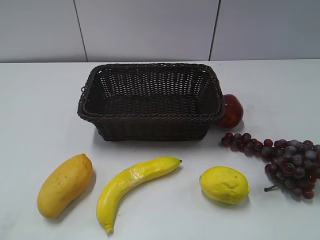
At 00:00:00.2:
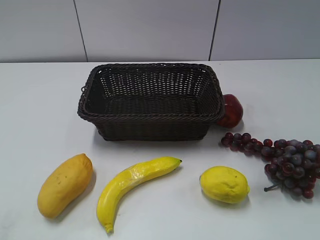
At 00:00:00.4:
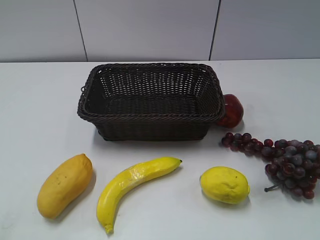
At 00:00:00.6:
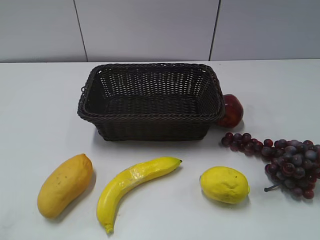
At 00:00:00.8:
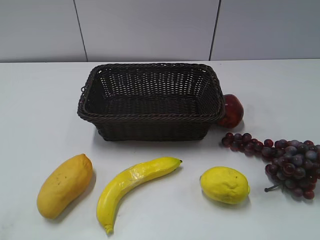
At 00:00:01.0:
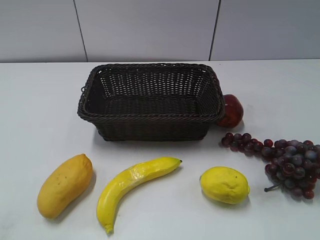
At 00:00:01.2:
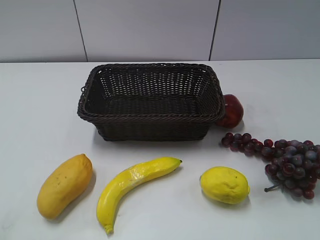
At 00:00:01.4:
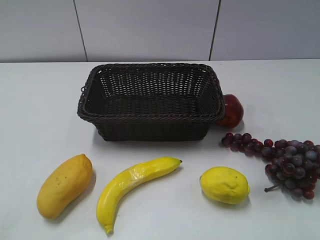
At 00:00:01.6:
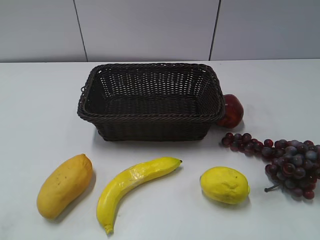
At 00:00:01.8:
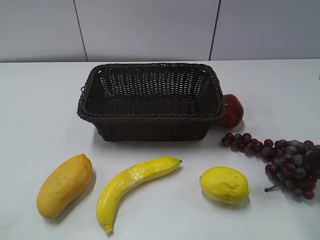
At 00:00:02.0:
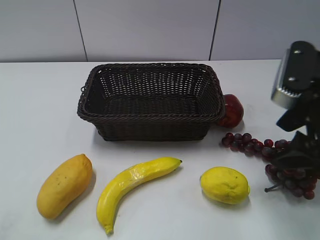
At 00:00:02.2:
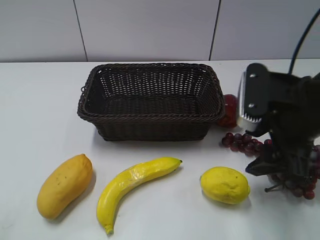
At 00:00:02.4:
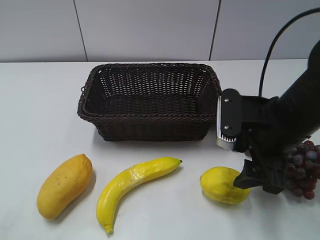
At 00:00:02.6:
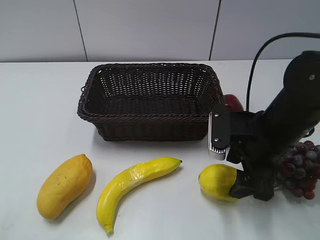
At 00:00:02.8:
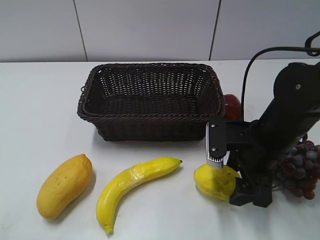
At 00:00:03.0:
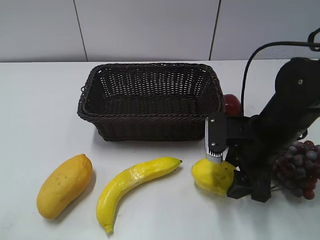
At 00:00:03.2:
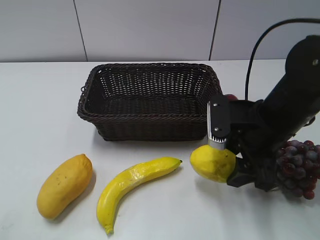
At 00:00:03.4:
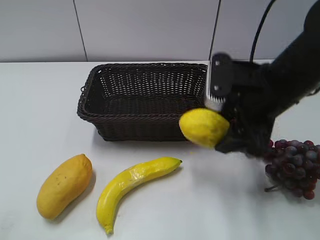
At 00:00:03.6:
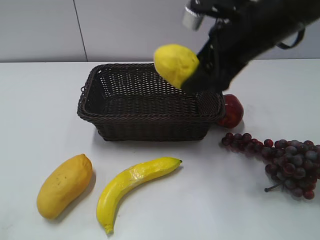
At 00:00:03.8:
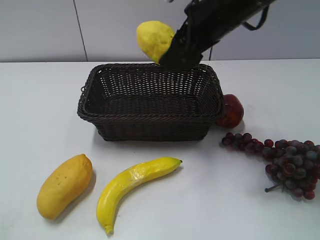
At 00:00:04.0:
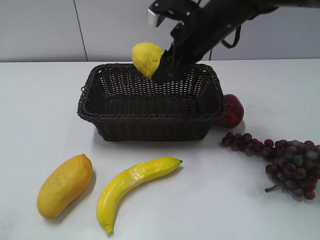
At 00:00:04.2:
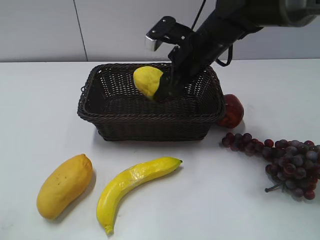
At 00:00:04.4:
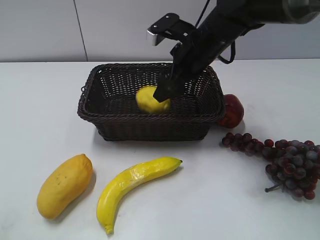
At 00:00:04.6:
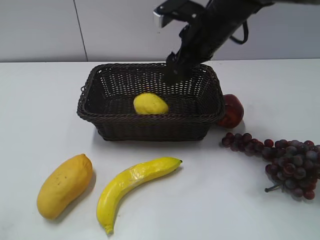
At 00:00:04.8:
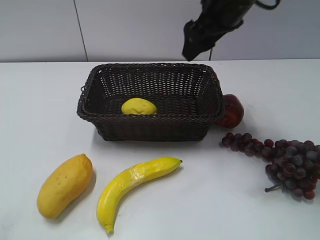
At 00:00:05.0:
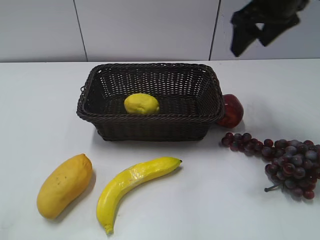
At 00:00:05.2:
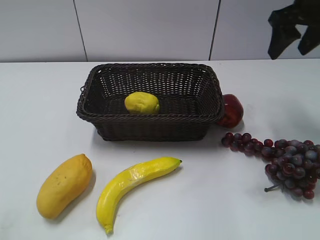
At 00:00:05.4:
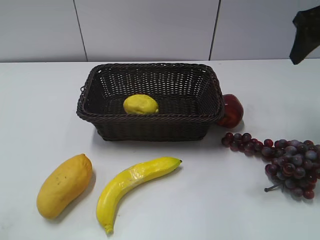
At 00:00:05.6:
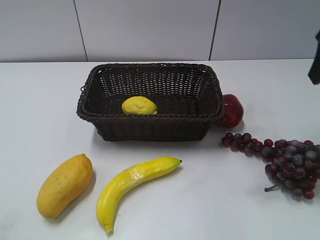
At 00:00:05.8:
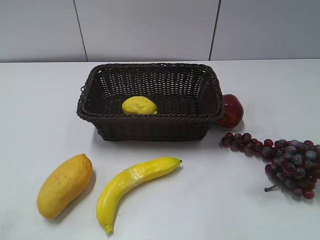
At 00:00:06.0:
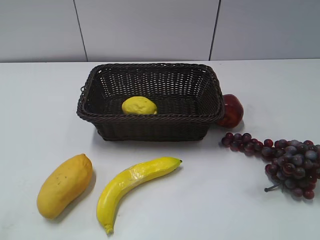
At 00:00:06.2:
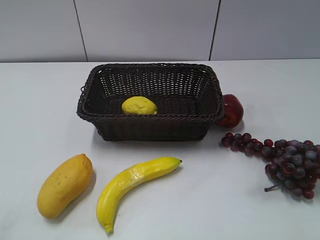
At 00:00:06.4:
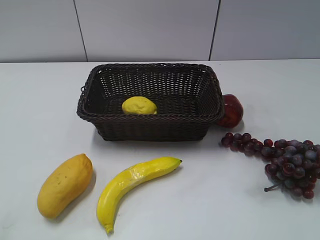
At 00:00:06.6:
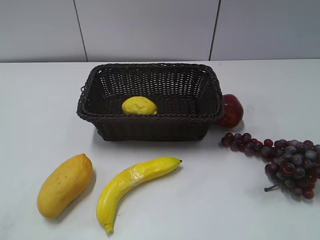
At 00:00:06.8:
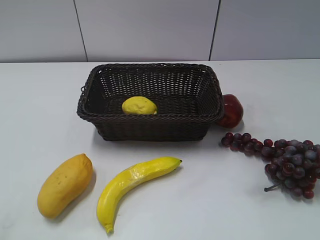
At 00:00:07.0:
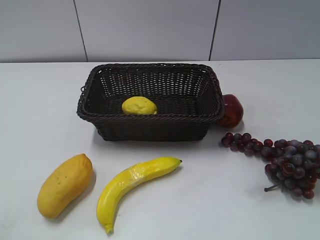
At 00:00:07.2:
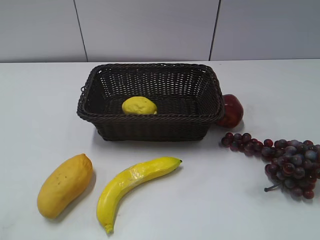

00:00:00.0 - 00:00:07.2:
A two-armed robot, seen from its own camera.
Step, 00:00:01.8 - 00:00:03.2: Grasp the lemon with right gripper.
Step, 00:00:03.4 - 00:00:04.2: Place the lemon in the basket with right gripper.
00:00:01.4 - 00:00:02.8: The right gripper moves forward, downward and to the left, some 25 cm.
00:00:02.8 - 00:00:04.4: The right gripper moves forward, to the left and upward, some 20 cm, and opens.
00:00:04.4 - 00:00:05.8: The right gripper heads to the right, backward and upward, covering approximately 30 cm, and closes up.

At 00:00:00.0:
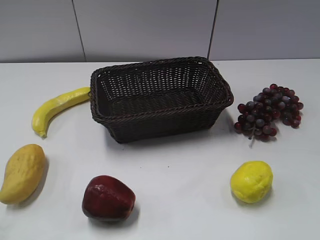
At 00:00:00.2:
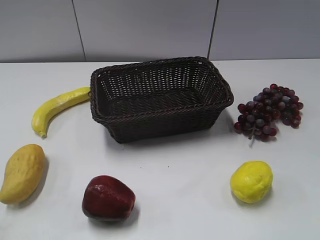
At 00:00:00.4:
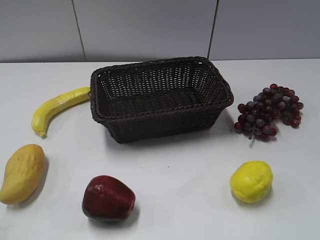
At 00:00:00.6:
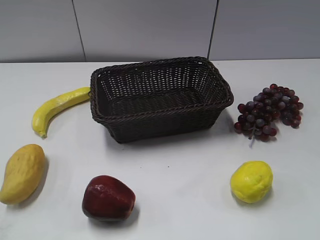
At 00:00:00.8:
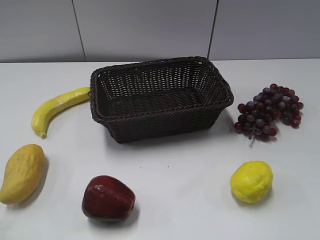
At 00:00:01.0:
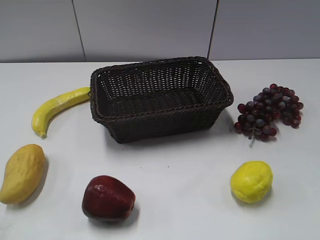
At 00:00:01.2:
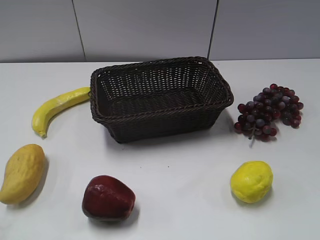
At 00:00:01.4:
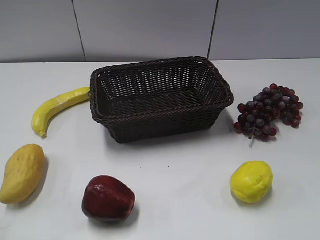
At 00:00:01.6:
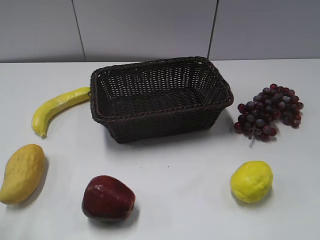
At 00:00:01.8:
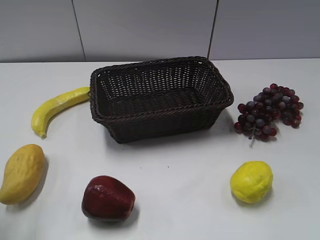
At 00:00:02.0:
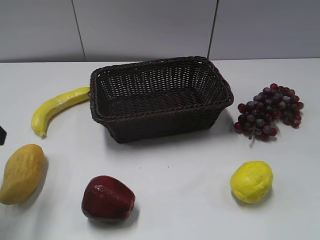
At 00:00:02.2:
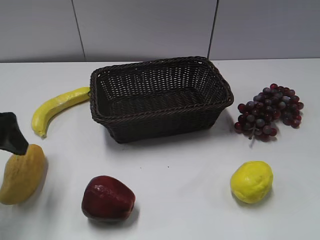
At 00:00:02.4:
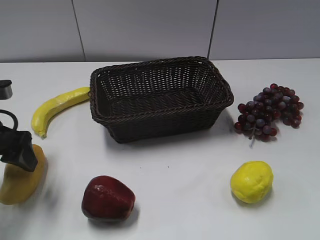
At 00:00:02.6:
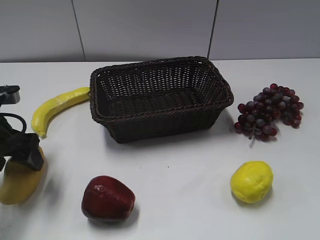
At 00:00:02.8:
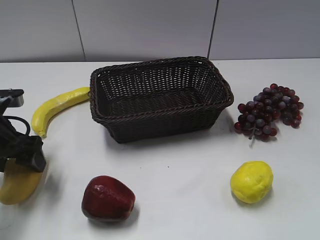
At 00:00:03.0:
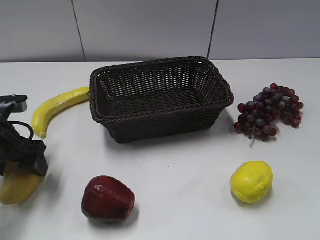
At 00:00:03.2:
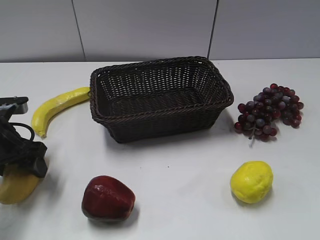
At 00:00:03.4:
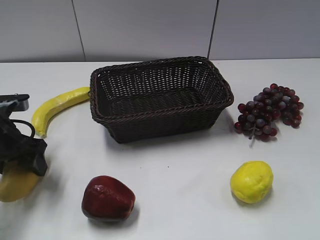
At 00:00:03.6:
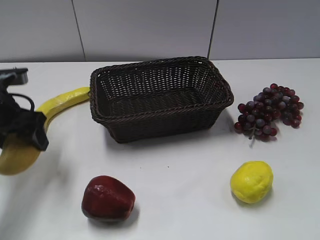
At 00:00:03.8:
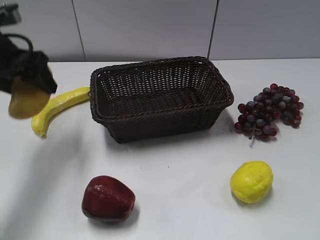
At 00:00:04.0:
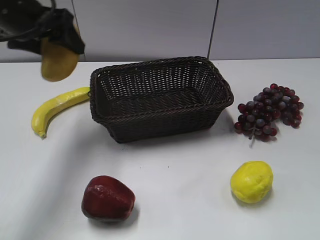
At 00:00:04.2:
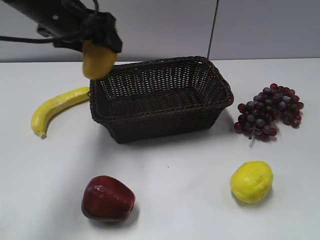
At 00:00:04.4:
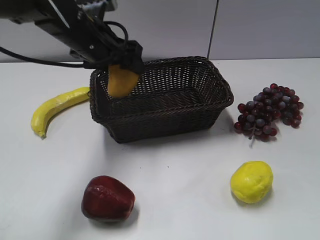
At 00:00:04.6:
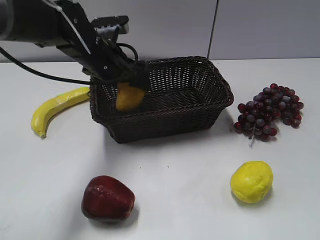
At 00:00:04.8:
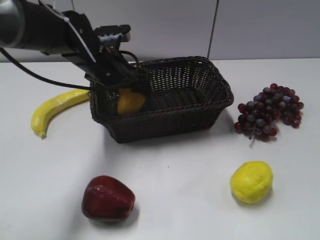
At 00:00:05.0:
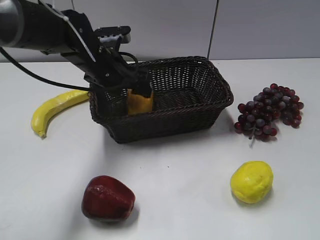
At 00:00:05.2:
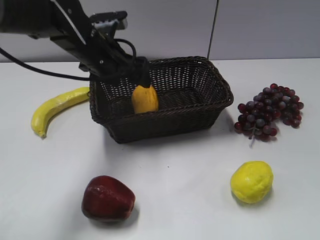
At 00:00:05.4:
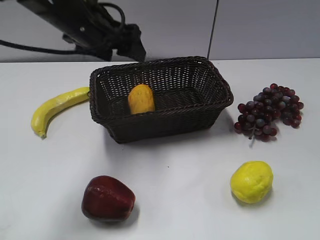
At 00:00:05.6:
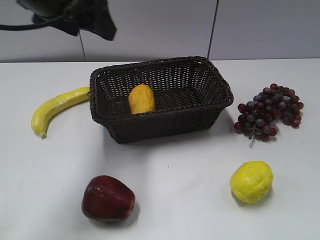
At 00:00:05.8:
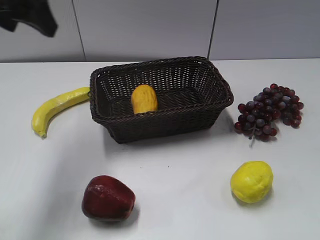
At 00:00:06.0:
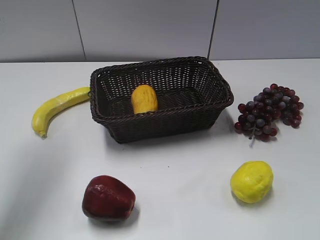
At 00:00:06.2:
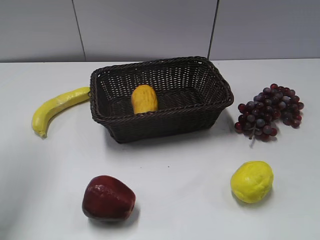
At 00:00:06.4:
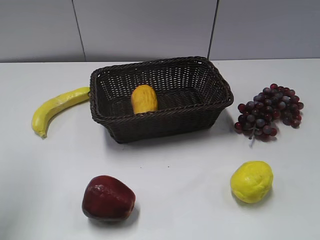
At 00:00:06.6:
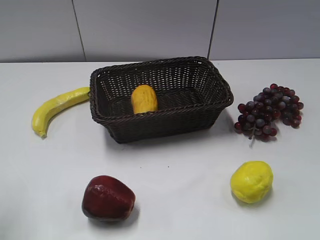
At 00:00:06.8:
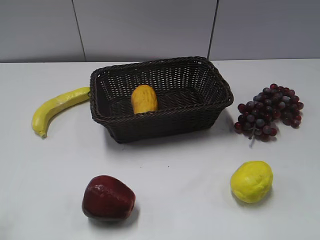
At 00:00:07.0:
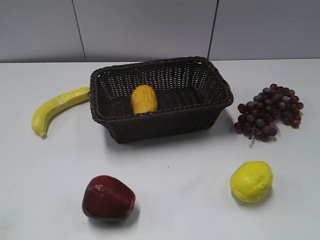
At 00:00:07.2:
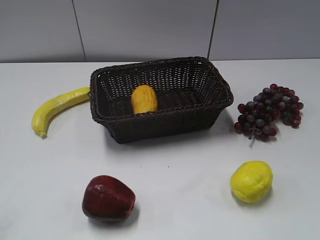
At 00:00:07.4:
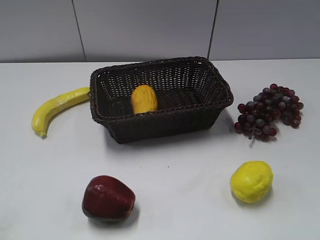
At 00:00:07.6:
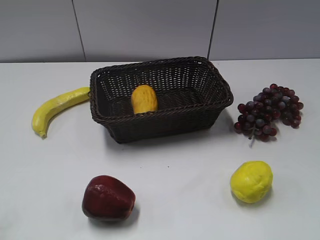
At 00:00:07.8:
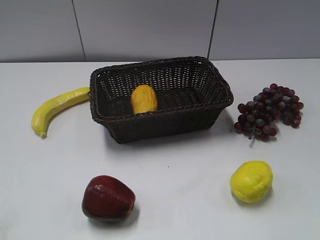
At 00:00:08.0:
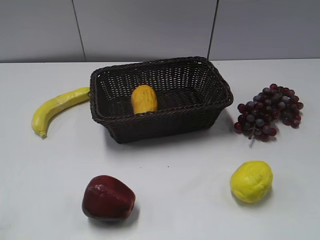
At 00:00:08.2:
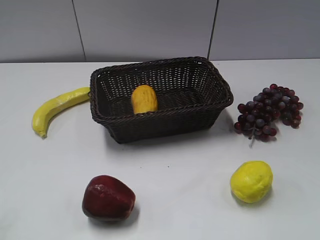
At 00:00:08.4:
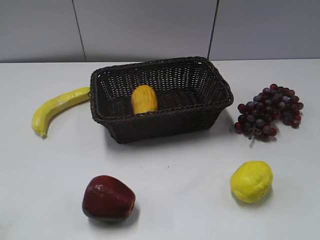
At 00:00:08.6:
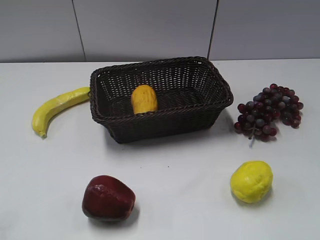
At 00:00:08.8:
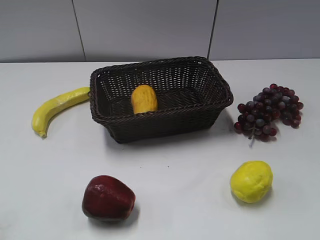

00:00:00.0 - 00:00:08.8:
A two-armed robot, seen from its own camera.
Step, 00:00:02.0 - 00:00:03.2: Grasp the mango with left gripper.
Step, 00:00:03.4 - 00:00:05.0: Place the mango in the basket with left gripper.
00:00:01.4 - 00:00:03.0: The left gripper goes about 30 cm forward and downward.
00:00:03.0 - 00:00:04.4: The left gripper is displaced to the right, upward and forward by approximately 20 cm, and closes up.
00:00:04.4 - 00:00:05.8: The left gripper goes about 20 cm upward, to the left and backward, and opens its fingers.
00:00:05.8 - 00:00:07.4: The left gripper travels backward by some 30 cm, and closes up.
00:00:07.4 - 00:00:08.8: Both grippers stay about where they are.

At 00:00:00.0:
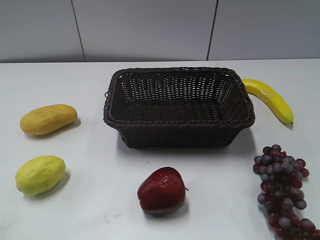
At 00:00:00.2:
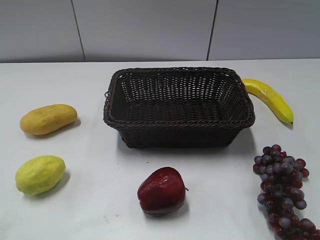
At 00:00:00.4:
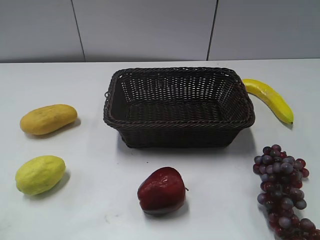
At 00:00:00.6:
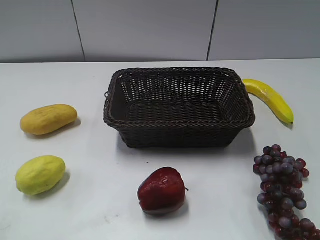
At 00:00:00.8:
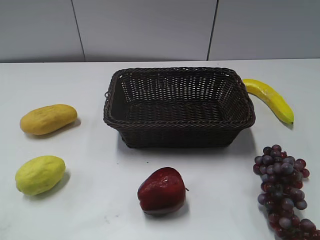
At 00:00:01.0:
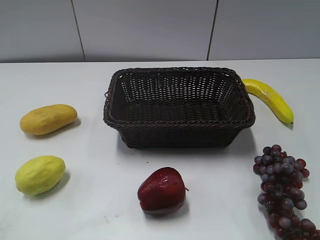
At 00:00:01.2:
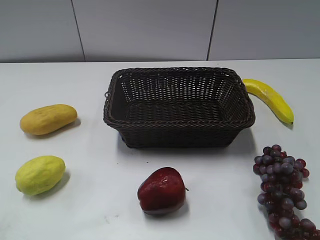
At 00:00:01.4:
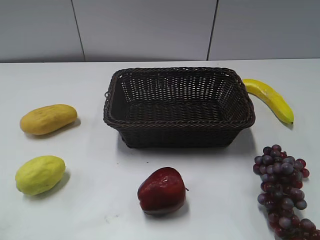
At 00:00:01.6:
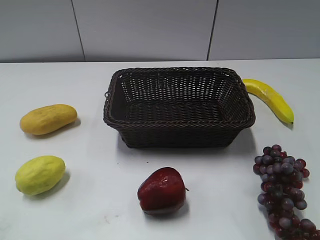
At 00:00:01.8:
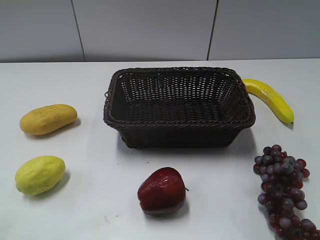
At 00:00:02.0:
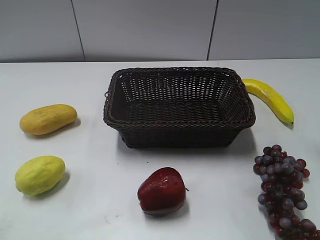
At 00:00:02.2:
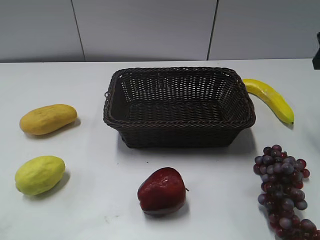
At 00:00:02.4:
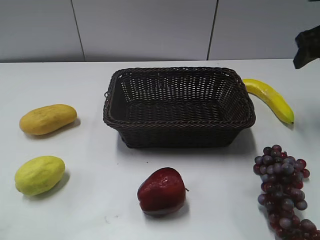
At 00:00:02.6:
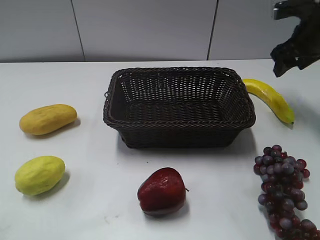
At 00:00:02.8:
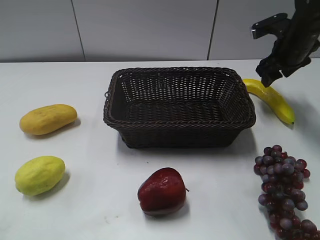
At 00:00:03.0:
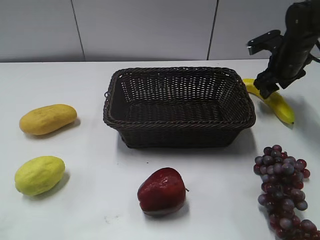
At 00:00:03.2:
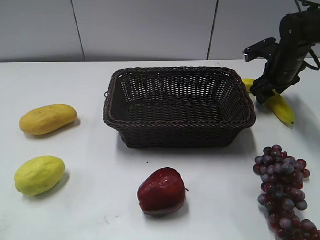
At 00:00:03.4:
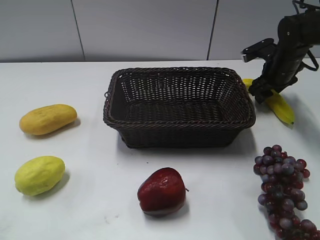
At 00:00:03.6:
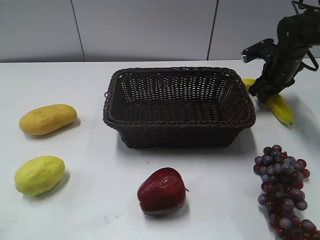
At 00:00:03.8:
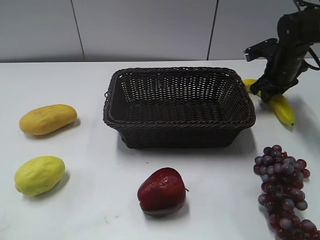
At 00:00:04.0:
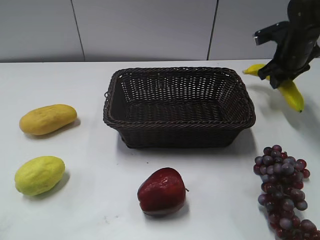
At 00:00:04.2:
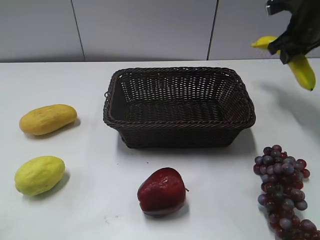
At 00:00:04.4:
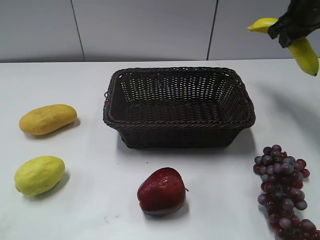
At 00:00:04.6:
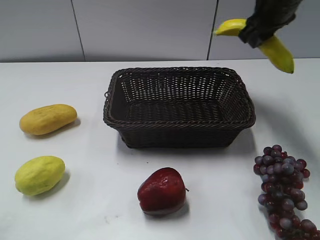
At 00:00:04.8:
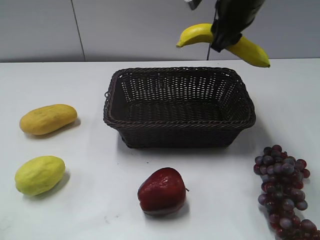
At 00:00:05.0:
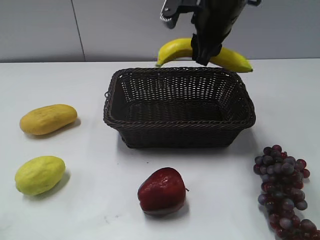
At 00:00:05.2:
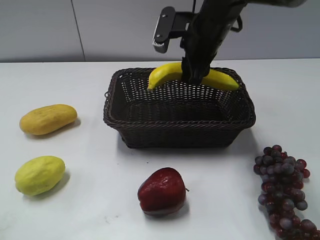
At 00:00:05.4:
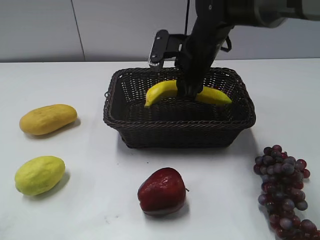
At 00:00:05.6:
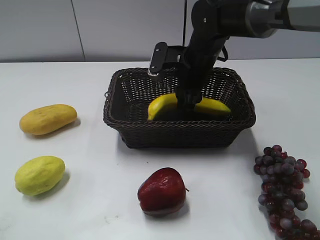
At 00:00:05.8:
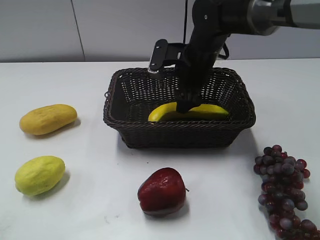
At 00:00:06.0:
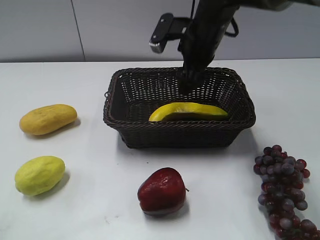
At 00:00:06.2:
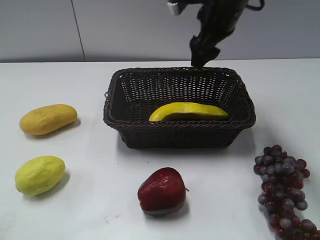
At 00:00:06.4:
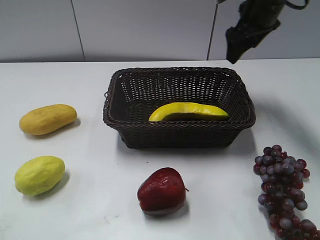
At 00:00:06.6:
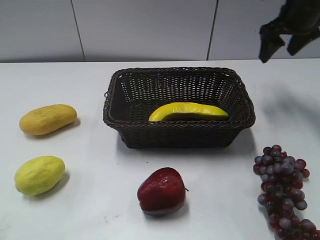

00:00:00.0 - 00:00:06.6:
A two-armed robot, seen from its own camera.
Step, 00:00:02.2 - 00:00:03.8: Grasp the banana with right gripper.
Step, 00:00:04.0 - 00:00:05.8: Place the banana in the basket with right gripper.
00:00:01.6 - 00:00:03.2: The right gripper is displaced forward and downward by some 35 cm.
00:00:03.2 - 00:00:05.0: The right gripper goes approximately 25 cm to the left, upward and backward, and closes up.
00:00:05.0 - 00:00:06.6: The right gripper heads to the right, covering some 15 cm, and opens its fingers.
